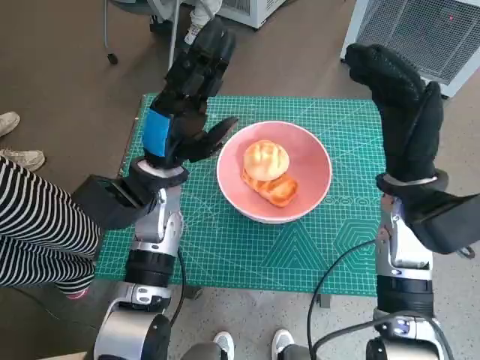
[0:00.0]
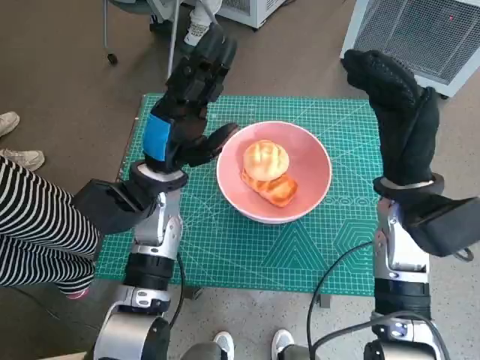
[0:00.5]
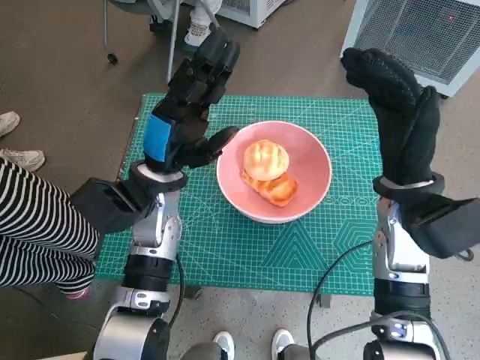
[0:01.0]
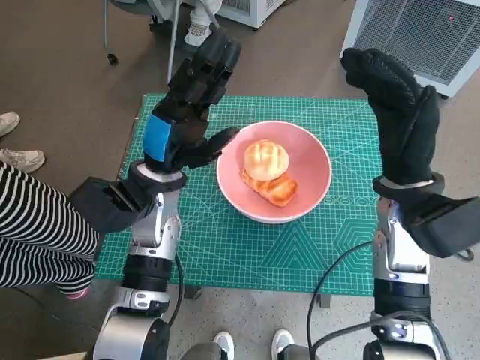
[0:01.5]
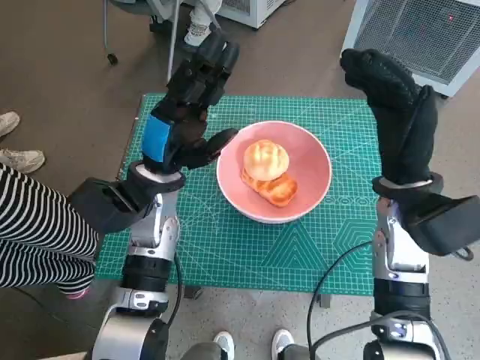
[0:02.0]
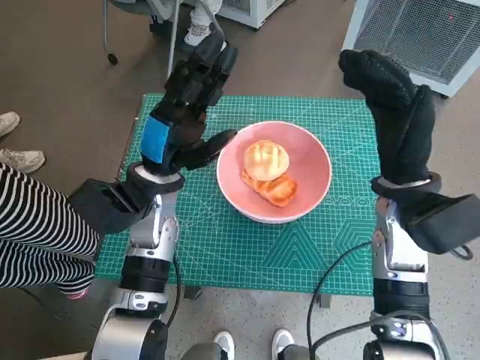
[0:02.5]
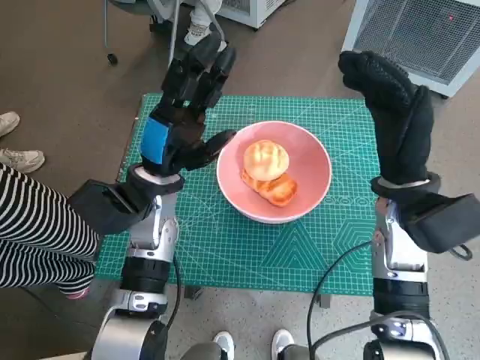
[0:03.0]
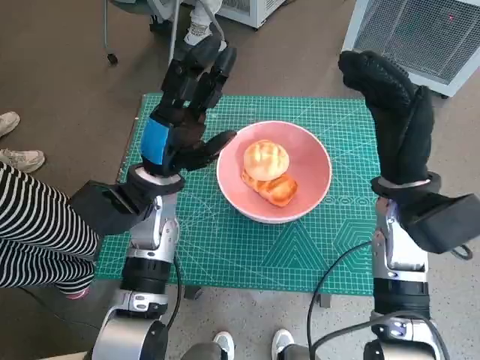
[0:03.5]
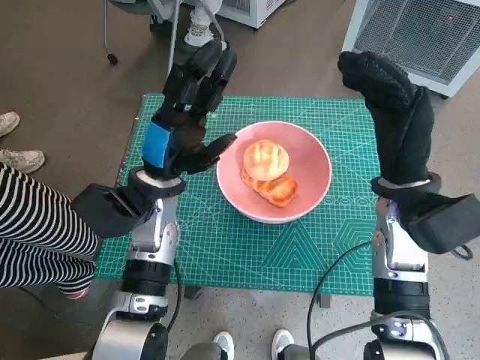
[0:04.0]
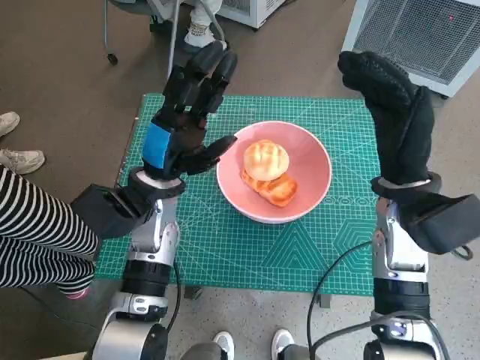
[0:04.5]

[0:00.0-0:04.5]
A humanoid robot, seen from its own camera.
Task of the whole recording: Push the bowl into the center of the table and put the bread into the bowl.
0:00.0 to 0:02.0: Both hands stay about where they are.
0:02.0 to 0:04.5: The two hands keep their place.
